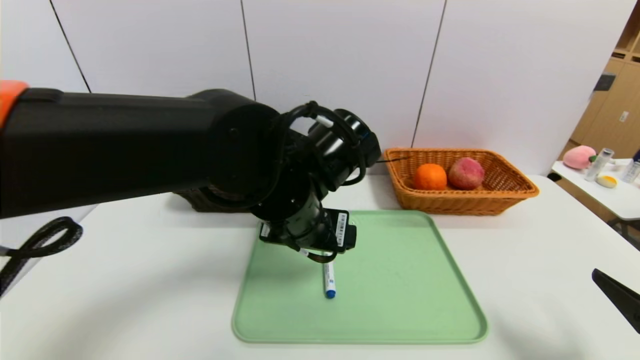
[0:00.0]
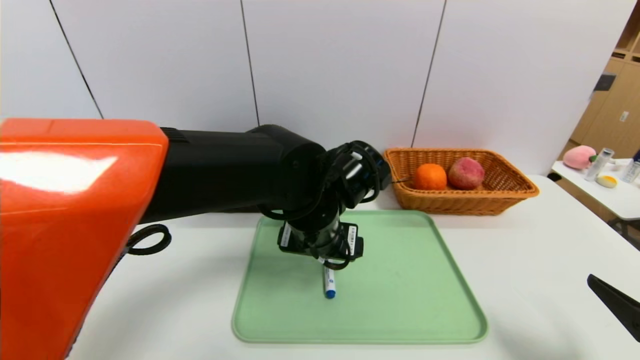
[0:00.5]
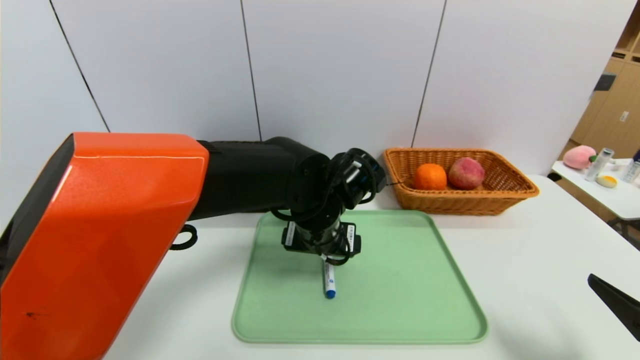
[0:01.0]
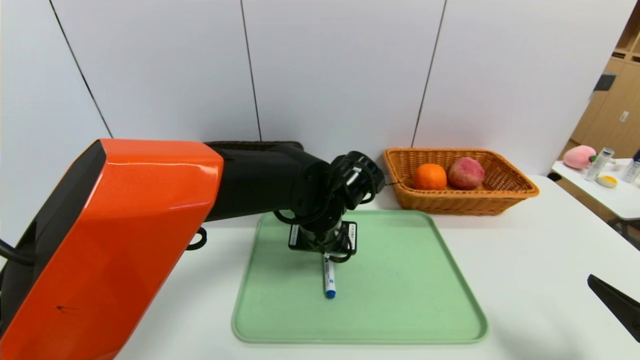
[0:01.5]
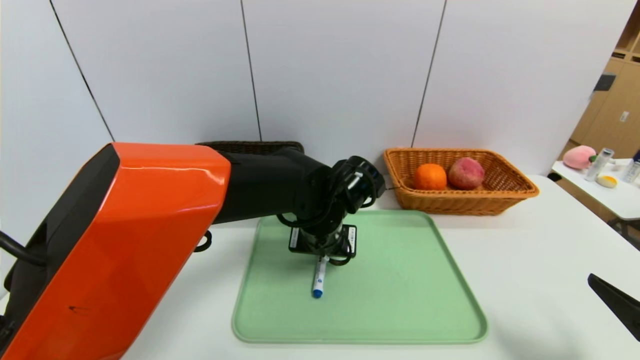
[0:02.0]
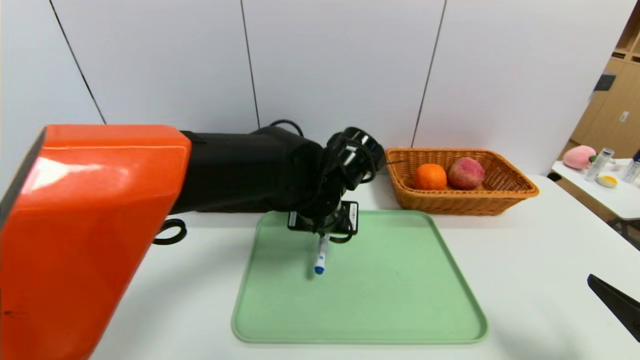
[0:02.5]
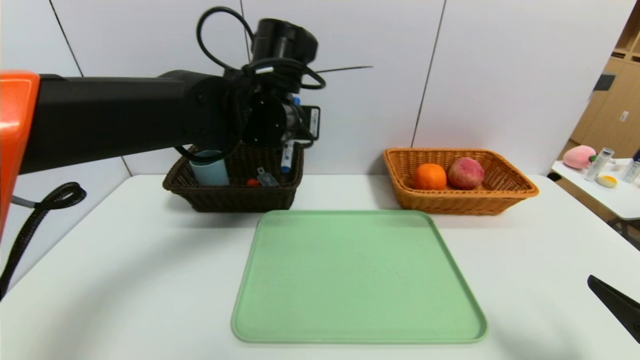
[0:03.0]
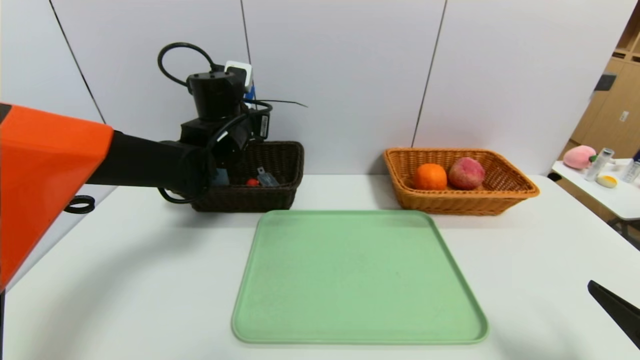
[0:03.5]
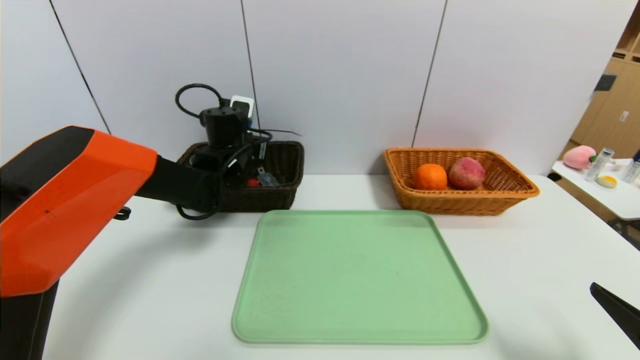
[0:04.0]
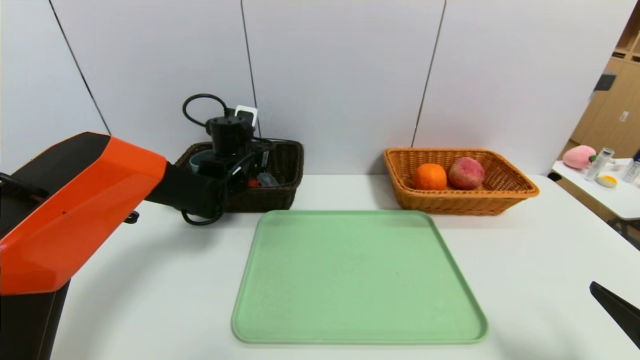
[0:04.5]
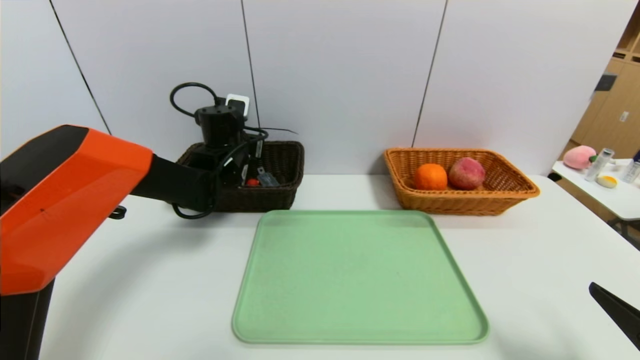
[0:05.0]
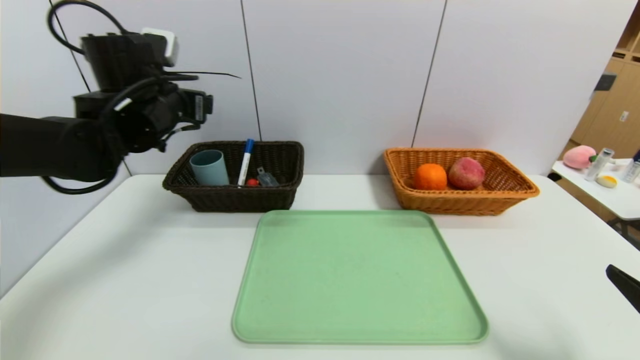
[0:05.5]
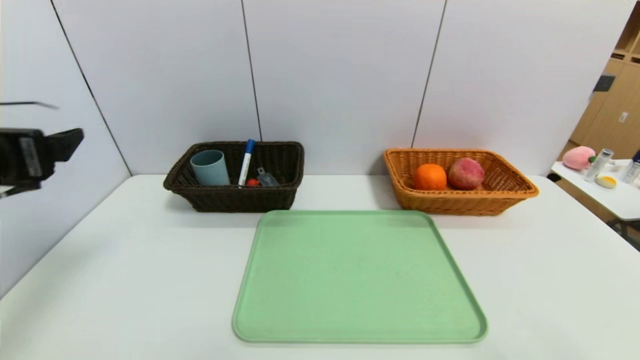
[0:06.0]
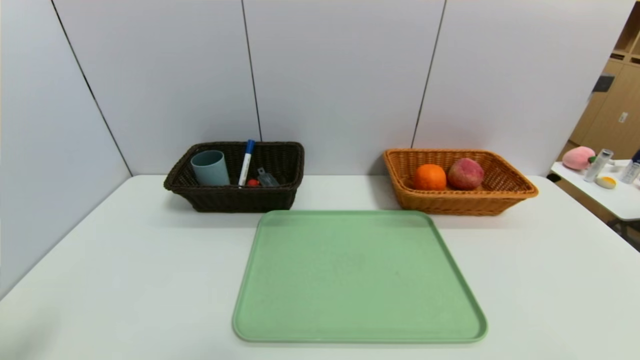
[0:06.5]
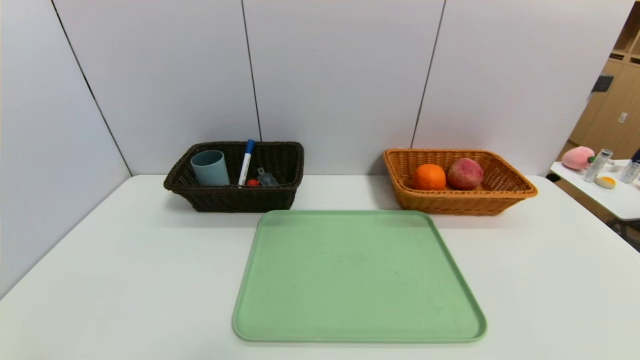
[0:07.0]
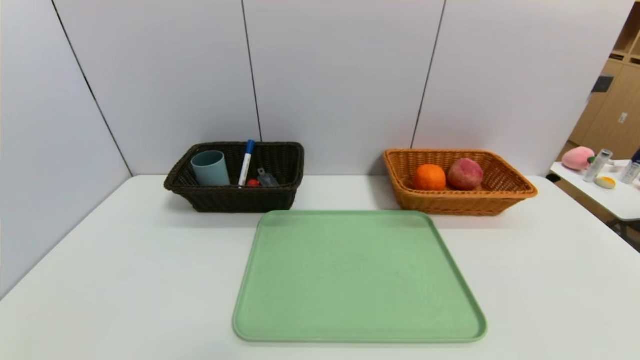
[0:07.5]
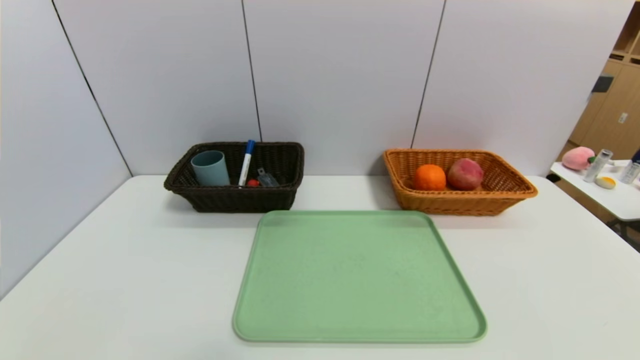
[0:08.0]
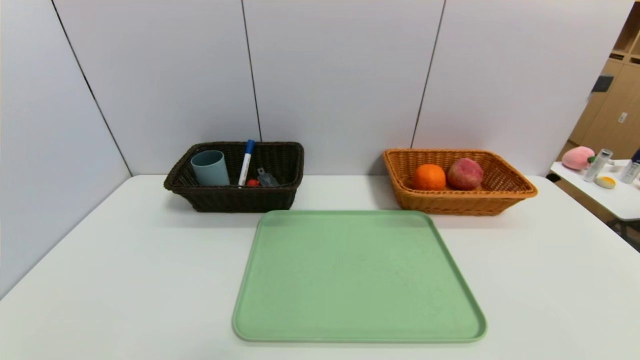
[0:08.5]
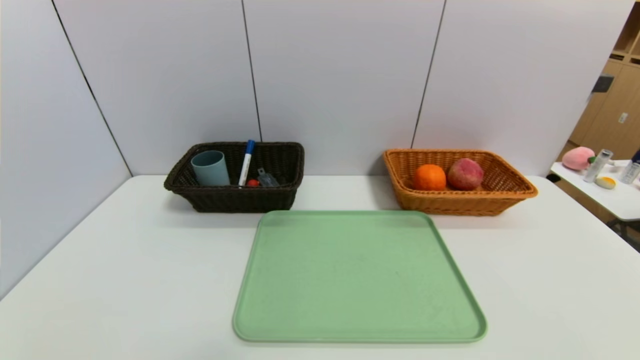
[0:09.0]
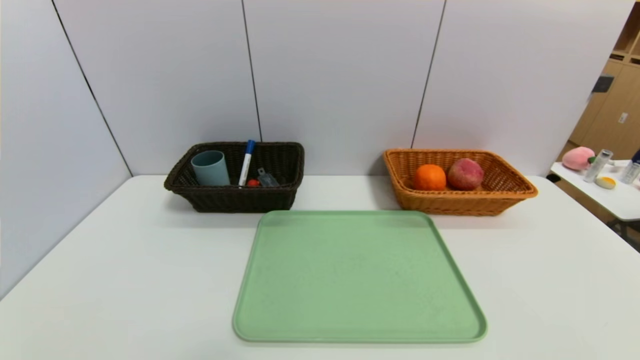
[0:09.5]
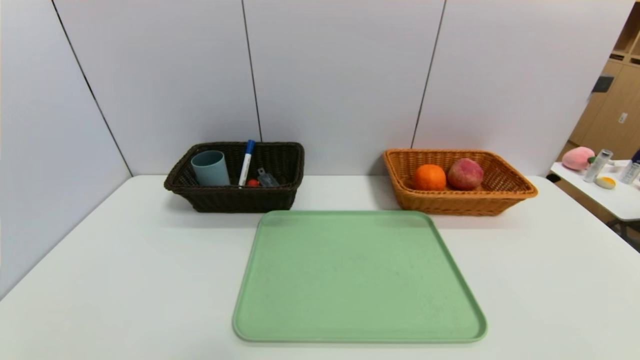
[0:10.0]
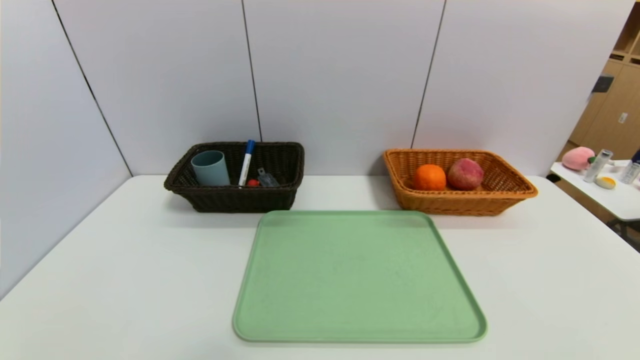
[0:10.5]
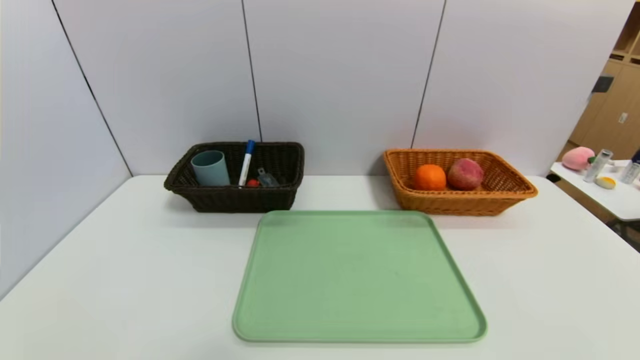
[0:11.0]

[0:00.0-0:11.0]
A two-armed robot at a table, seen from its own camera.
Task of the whole recording: place the food in the right basket with the right gripper, and place the non food items in the left basket with the left gripper.
Step, 0:00.0 to 0:04.5: Grasp the blue marker and put it in the left basket.
0:00.0 to 0:02.0: The left gripper is displaced downward and forward by approximately 10 cm, and closes.
0:02.0 to 0:03.5: The left gripper goes about 20 cm to the left, forward and upward.
0:03.5 to 0:05.5: The left gripper travels to the left by approximately 10 cm, and opens its fingers.
0:05.5 to 0:07.5: The left gripper travels backward by some 40 cm, while the right gripper is displaced backward by approximately 15 cm.
